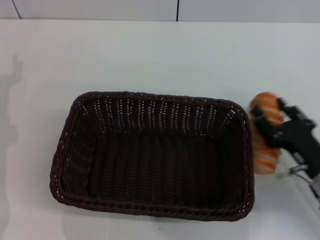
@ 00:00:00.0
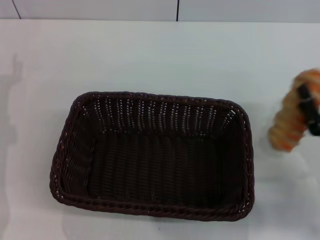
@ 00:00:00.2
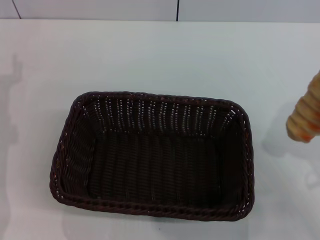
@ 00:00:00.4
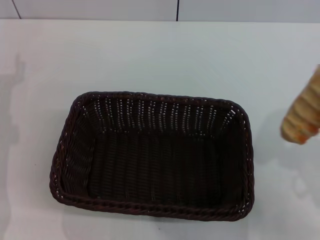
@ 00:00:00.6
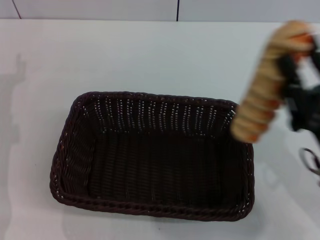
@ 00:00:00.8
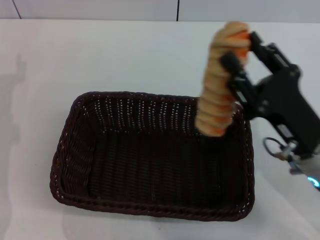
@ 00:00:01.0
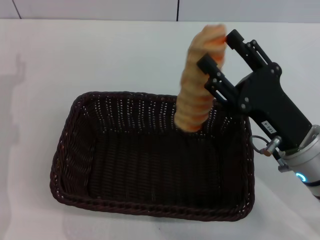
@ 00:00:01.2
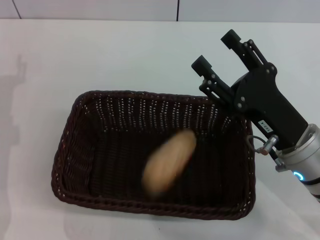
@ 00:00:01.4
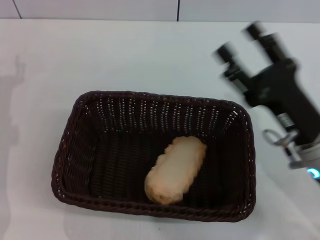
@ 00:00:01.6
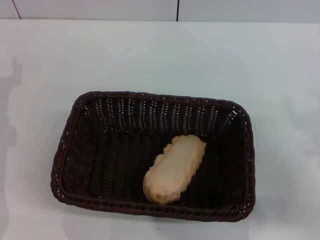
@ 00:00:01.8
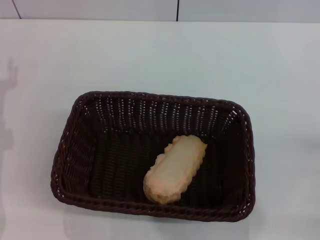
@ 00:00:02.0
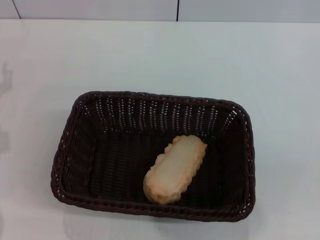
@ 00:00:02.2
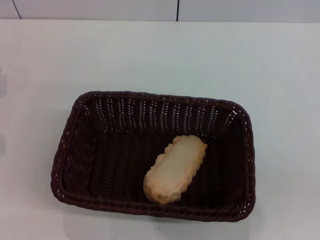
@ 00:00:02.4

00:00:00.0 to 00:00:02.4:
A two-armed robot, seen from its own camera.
Step, 00:00:00.8 to 00:00:02.0: Place the long bread into the dark basket with the right gripper.
00:00:00.0 to 00:00:01.2: The right gripper heads upward and to the left, covering approximately 10 cm.
00:00:01.2 to 00:00:02.4: The right gripper goes some 25 cm to the right and backward, and opens up.

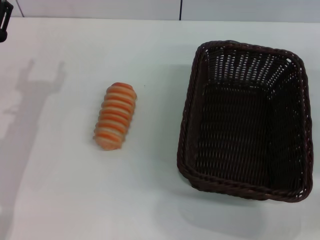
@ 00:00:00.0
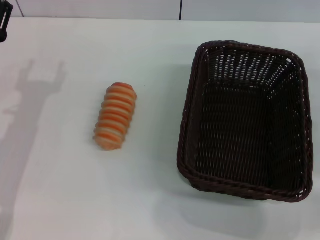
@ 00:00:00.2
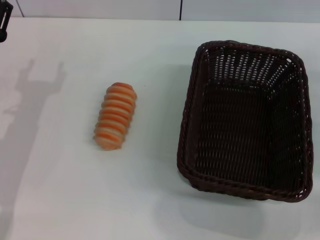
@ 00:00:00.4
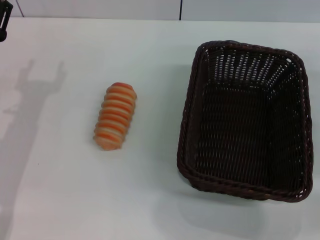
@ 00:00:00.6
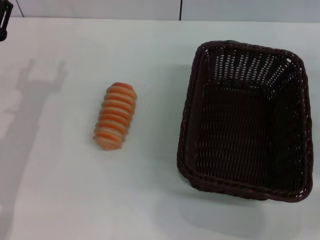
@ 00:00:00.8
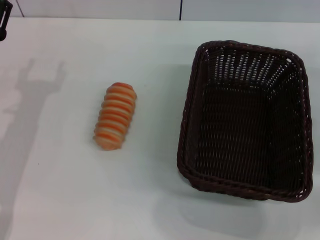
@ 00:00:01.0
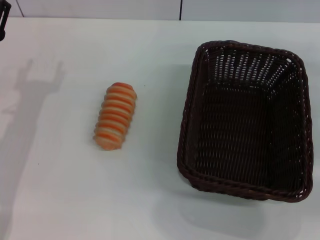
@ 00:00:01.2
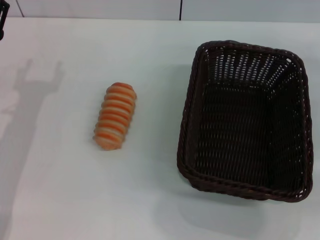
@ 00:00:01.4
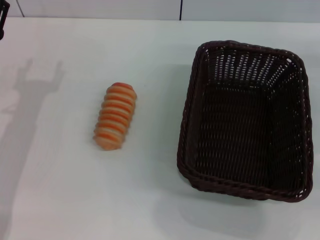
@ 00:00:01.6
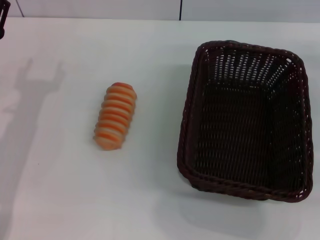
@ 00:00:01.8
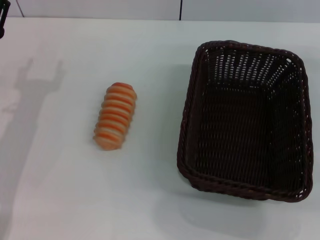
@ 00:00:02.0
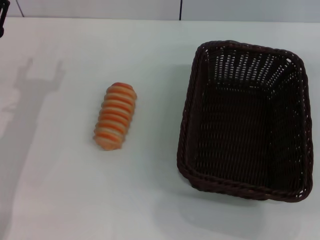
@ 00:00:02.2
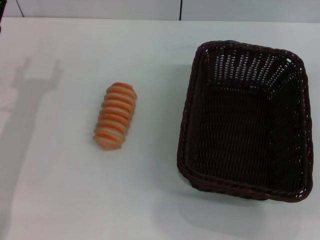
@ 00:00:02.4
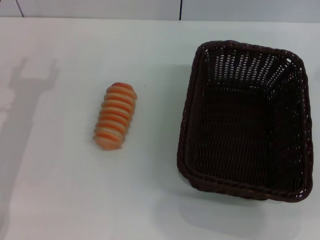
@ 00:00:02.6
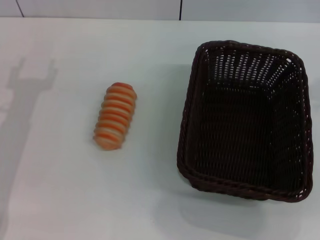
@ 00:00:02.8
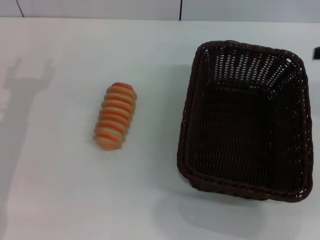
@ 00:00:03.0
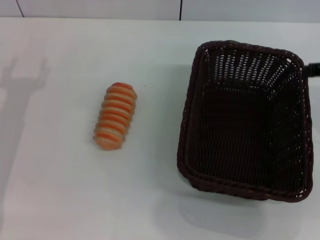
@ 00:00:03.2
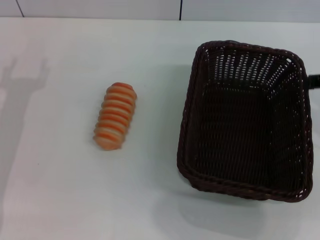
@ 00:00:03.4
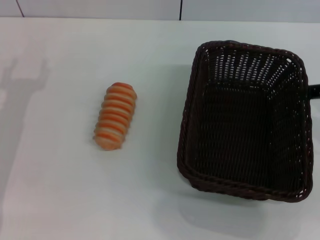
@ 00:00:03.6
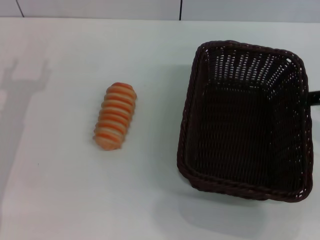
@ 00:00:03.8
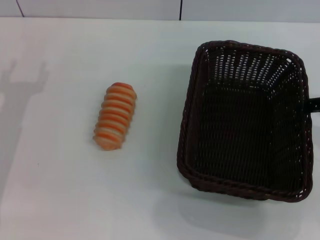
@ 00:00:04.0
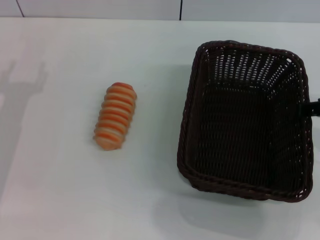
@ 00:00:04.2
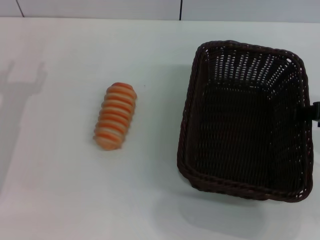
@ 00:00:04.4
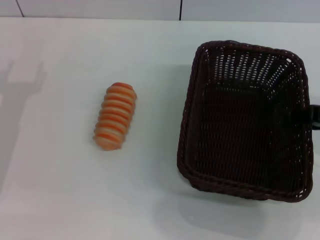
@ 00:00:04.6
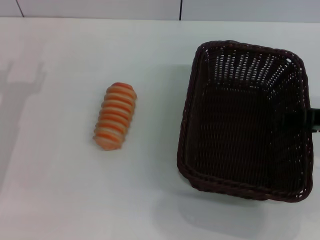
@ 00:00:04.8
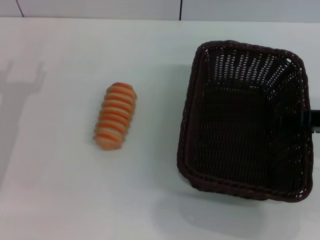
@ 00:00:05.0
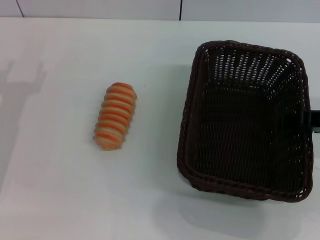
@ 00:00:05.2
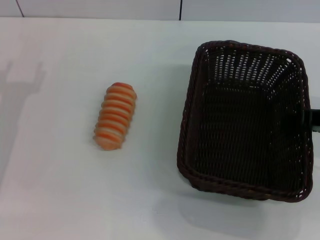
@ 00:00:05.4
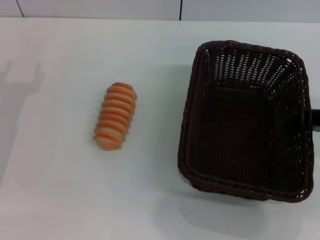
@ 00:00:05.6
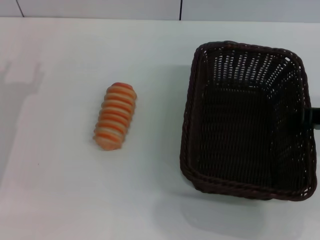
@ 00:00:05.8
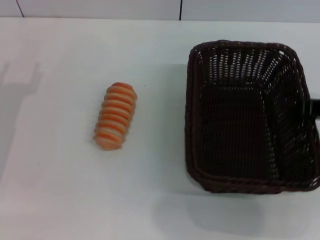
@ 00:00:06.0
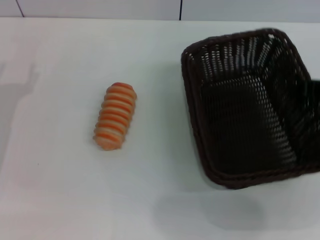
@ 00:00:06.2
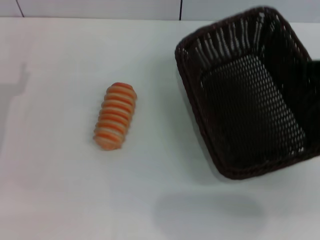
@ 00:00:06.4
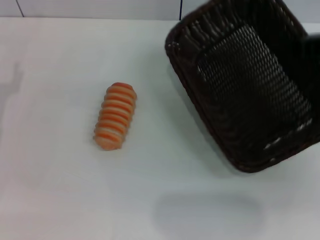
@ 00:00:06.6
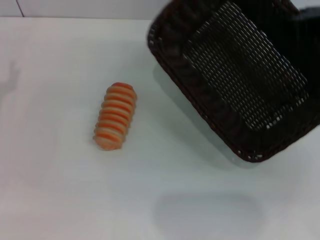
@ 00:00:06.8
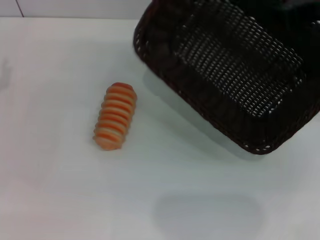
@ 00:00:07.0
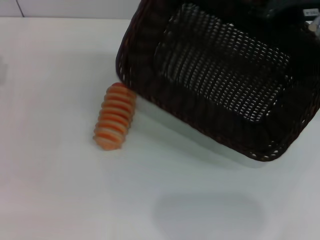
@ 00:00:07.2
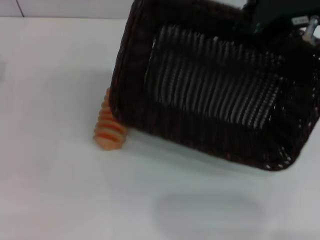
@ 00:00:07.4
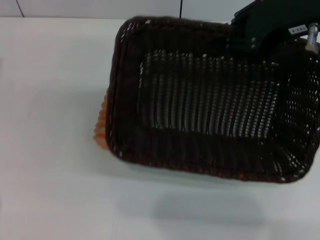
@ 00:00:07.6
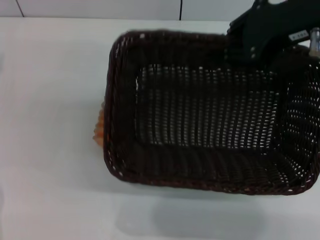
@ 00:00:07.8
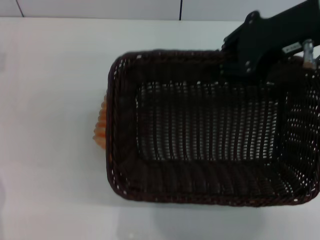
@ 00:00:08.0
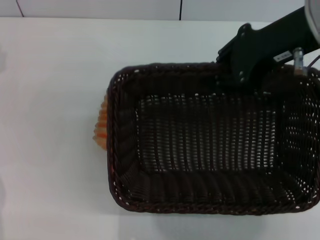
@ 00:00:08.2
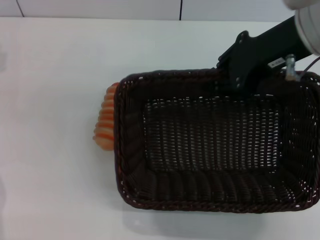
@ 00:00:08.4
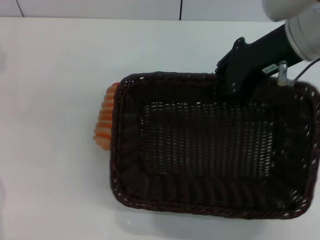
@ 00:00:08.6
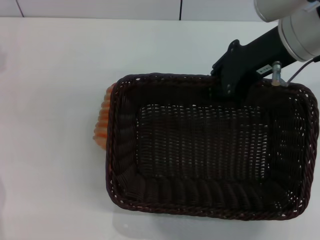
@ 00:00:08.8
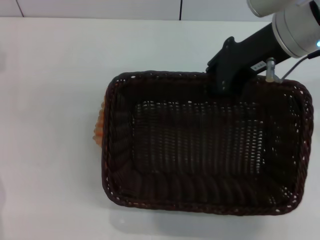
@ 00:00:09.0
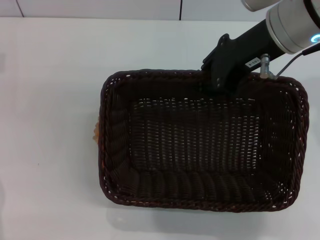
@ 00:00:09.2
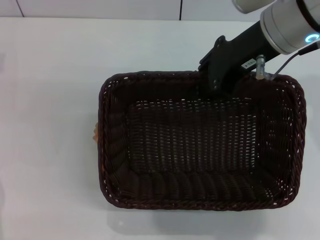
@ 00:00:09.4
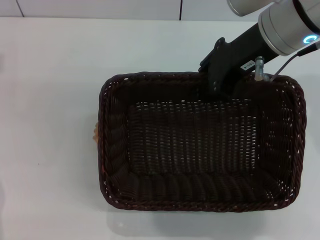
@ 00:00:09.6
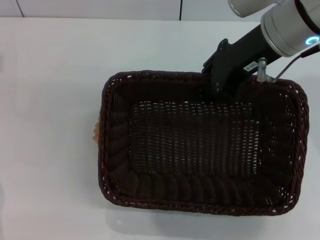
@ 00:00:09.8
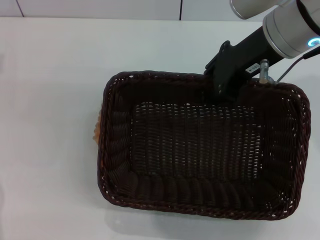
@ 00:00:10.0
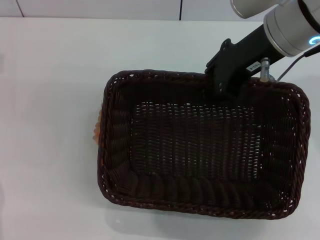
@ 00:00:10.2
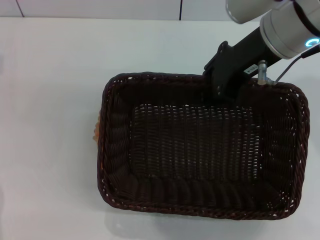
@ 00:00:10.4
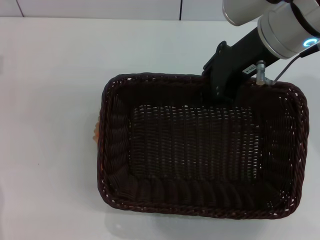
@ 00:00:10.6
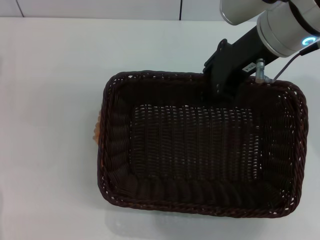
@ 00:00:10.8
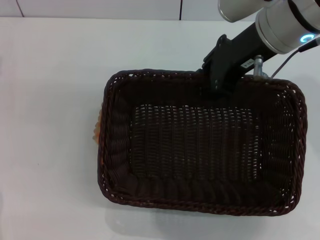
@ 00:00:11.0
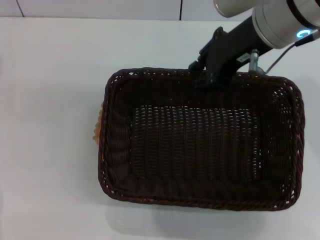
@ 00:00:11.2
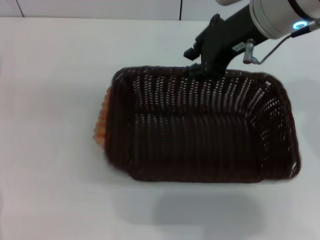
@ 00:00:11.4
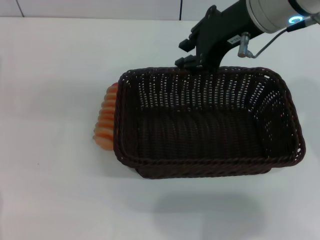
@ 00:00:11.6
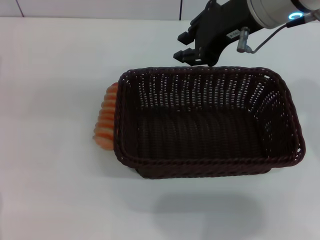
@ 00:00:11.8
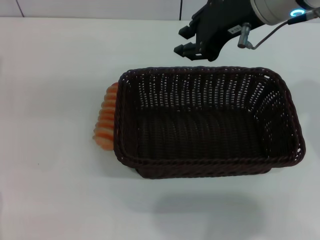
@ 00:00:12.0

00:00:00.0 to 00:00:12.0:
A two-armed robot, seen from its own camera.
Step, 00:00:00.0 to 00:00:06.4: Pick up the dark basket with the right gripper.
Step, 00:00:06.6 to 00:00:11.8: Place the dark basket in the center of view with the right gripper.
00:00:04.4 to 00:00:06.0: The right gripper closes its fingers.
00:00:06.0 to 00:00:07.6: The right gripper is displaced upward and to the left by some 15 cm.
00:00:07.6 to 00:00:09.0: The right gripper moves about 5 cm.
00:00:09.0 to 00:00:10.4: The grippers make only small movements.

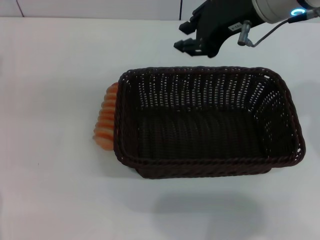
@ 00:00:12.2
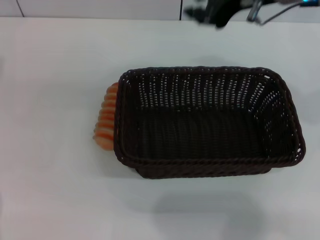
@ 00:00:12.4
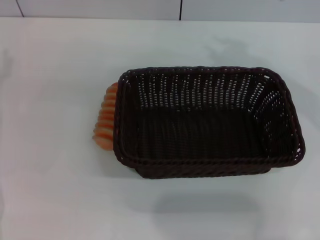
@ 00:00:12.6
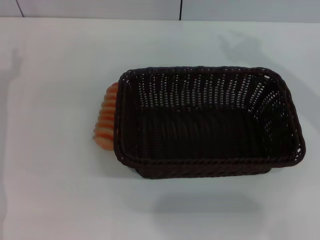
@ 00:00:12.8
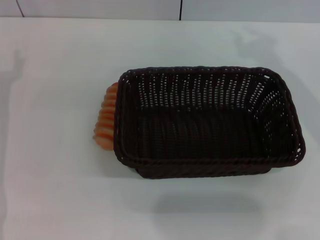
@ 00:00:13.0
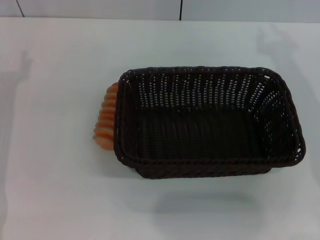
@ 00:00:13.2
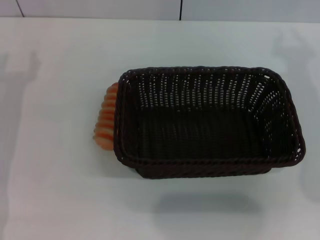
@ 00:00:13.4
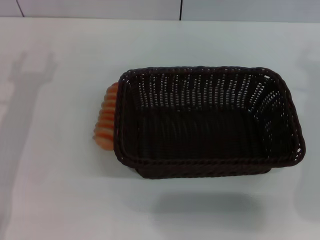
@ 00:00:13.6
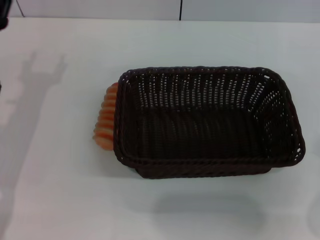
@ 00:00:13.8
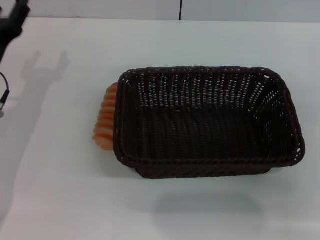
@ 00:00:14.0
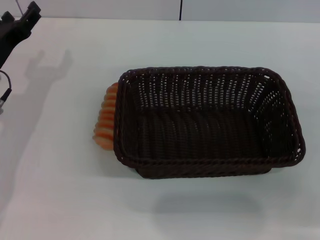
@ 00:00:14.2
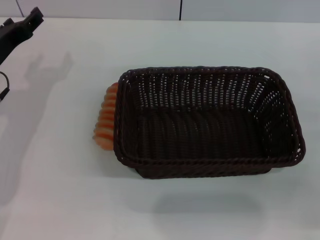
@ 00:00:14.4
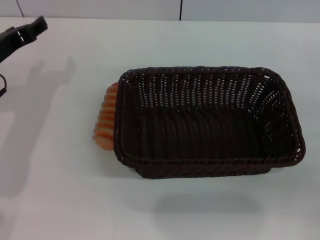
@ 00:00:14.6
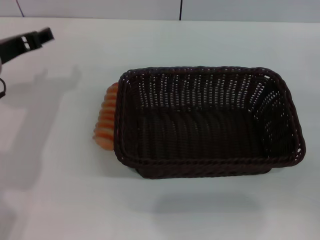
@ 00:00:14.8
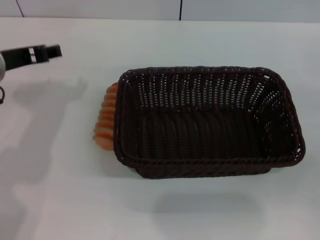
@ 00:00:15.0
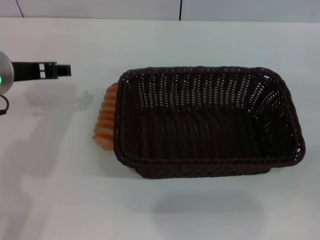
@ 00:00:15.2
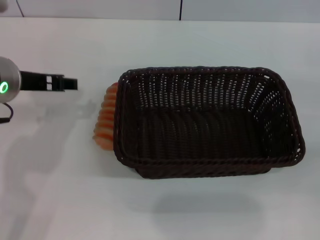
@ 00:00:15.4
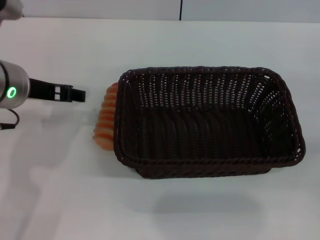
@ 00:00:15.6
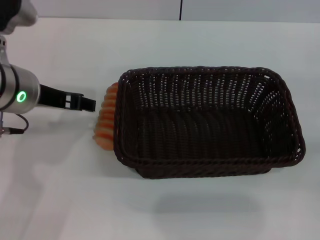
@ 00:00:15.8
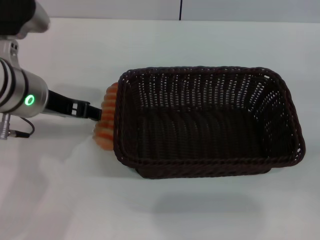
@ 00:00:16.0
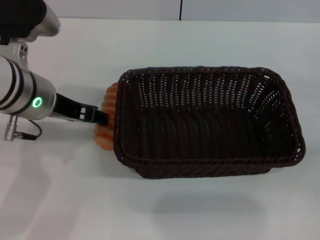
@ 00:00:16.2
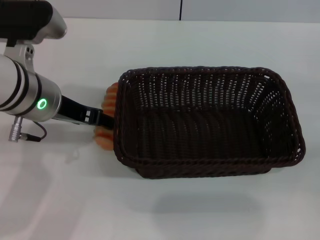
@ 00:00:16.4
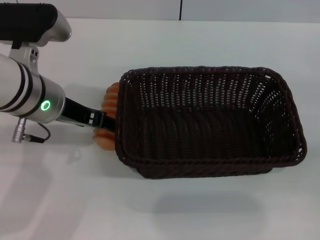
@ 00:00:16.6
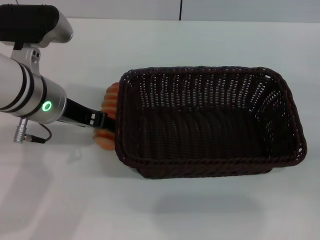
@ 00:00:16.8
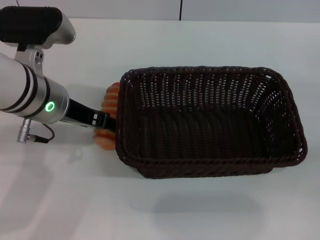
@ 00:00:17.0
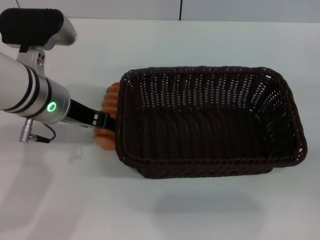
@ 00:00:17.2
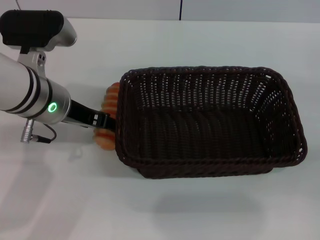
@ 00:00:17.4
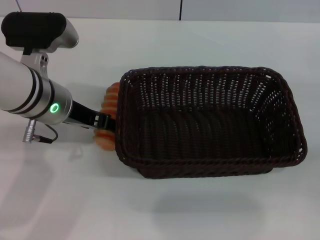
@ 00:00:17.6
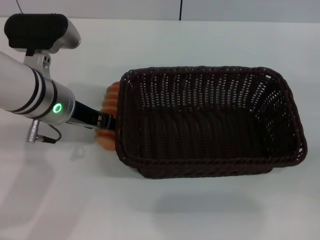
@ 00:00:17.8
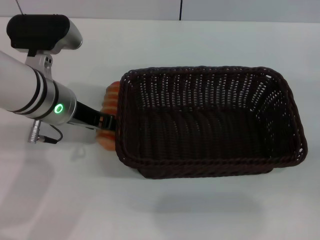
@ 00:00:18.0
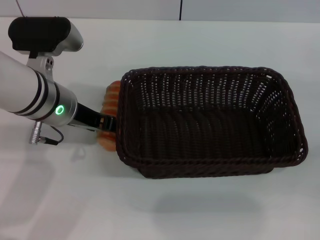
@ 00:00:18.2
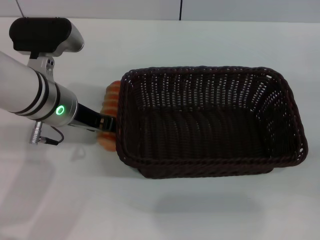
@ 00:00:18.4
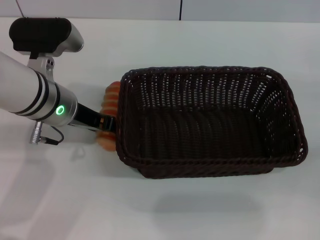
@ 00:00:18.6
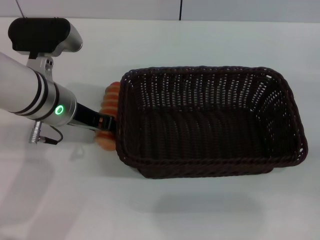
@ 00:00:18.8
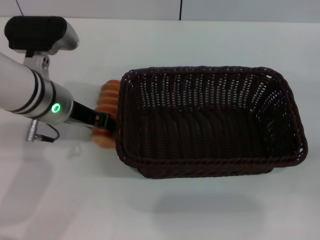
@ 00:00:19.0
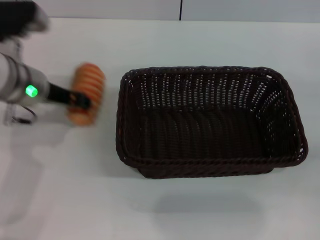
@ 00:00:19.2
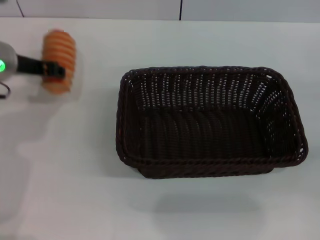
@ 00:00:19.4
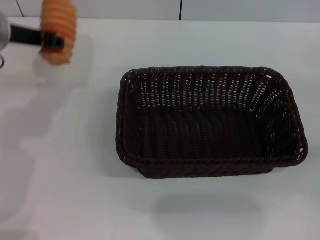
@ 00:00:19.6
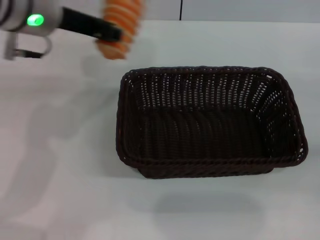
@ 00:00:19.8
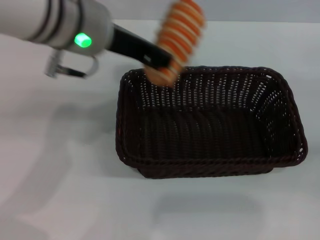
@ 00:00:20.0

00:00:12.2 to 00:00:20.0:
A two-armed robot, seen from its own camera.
Step, 00:00:12.2 to 00:00:19.4: Pick up the long bread with the left gripper.
00:00:12.2 to 00:00:13.8: The left gripper heads to the right, covering approximately 5 cm. The right gripper goes some 20 cm to the right, downward and backward.
00:00:13.8 to 00:00:15.4: The right gripper is displaced to the right and downward by some 15 cm. Meanwhile the left gripper heads upward and to the right, covering approximately 10 cm.
00:00:15.4 to 00:00:16.8: The grippers stay close to where they were, moving slightly.
00:00:16.8 to 00:00:18.4: The grippers move only a little.
00:00:18.4 to 00:00:20.0: The left gripper goes some 15 cm upward and to the right, and closes its fingers.
